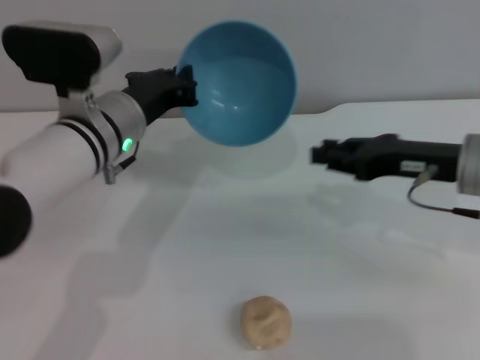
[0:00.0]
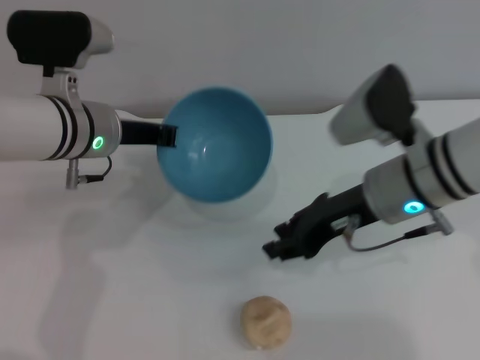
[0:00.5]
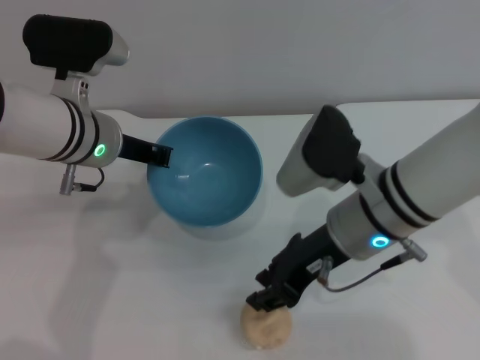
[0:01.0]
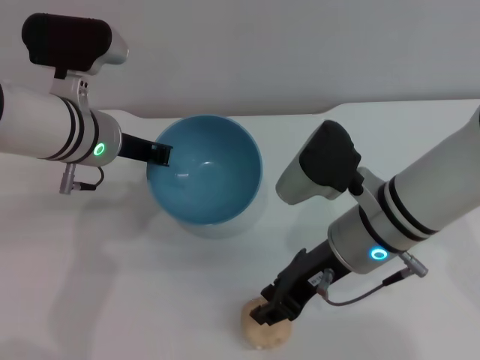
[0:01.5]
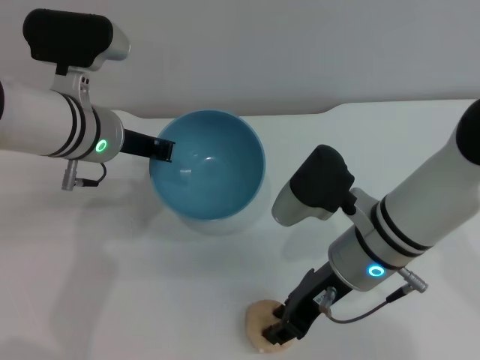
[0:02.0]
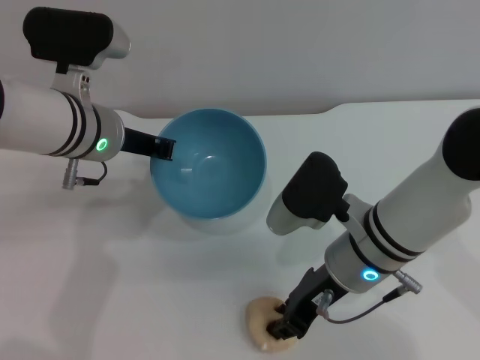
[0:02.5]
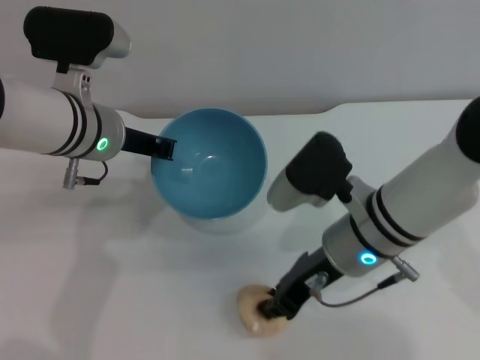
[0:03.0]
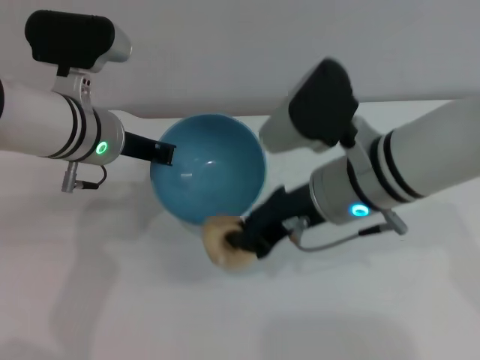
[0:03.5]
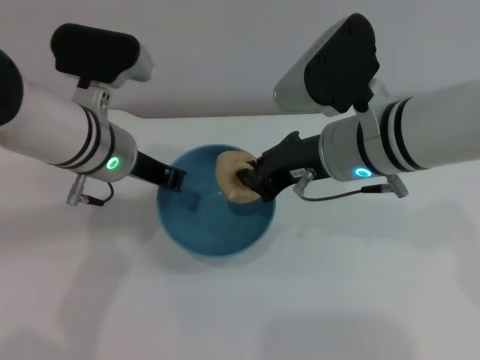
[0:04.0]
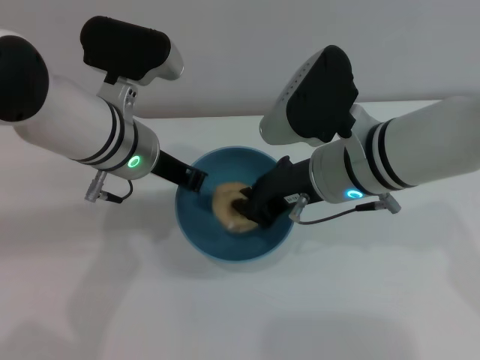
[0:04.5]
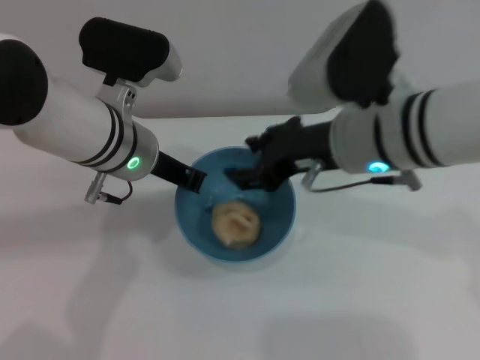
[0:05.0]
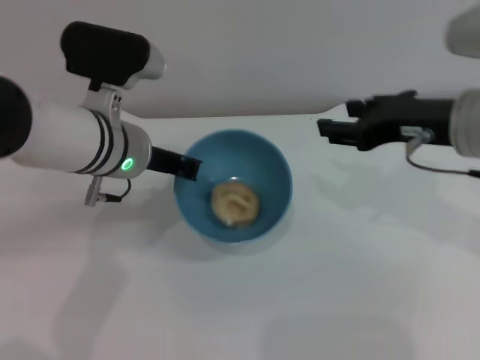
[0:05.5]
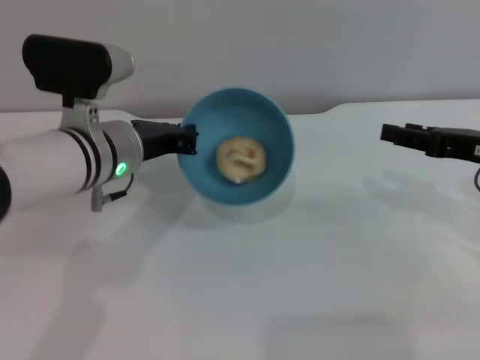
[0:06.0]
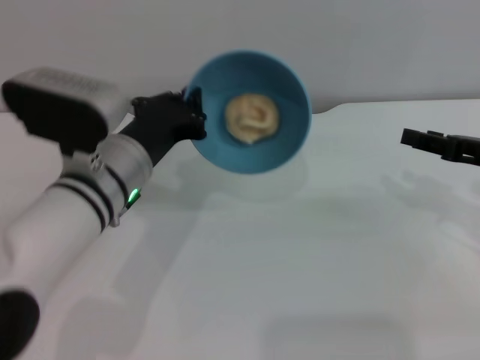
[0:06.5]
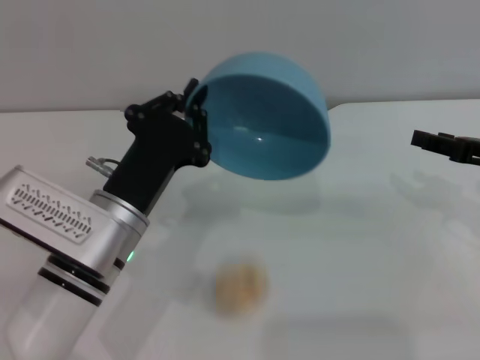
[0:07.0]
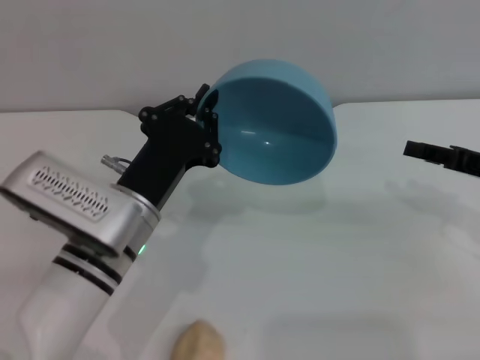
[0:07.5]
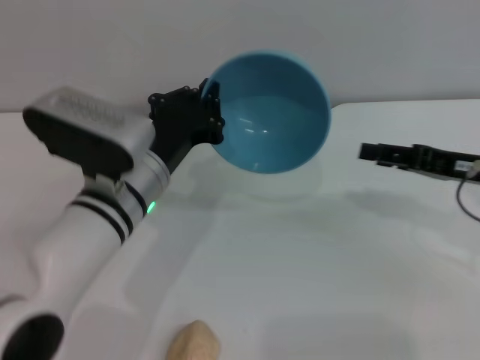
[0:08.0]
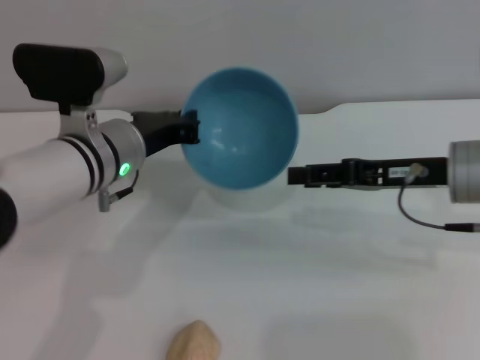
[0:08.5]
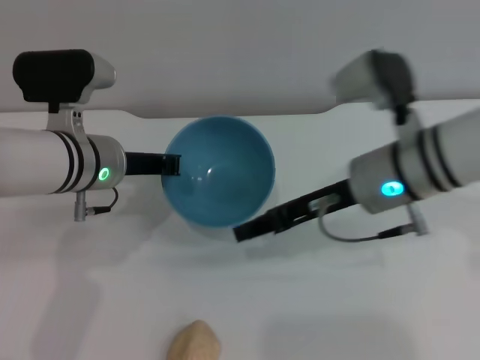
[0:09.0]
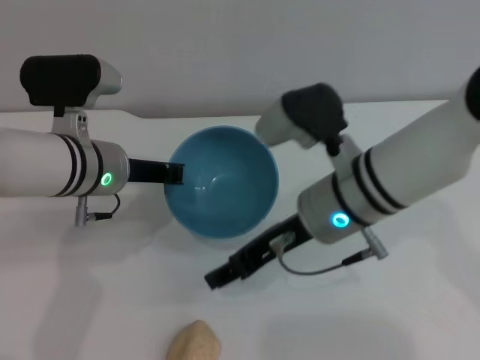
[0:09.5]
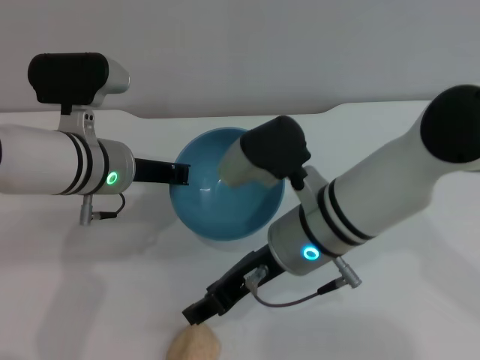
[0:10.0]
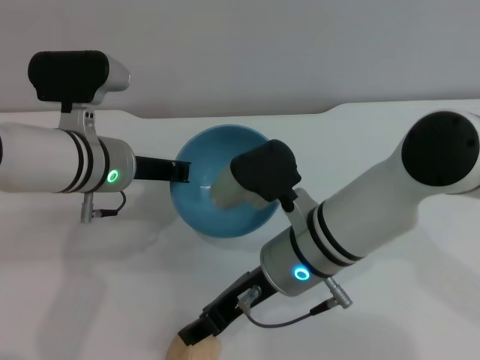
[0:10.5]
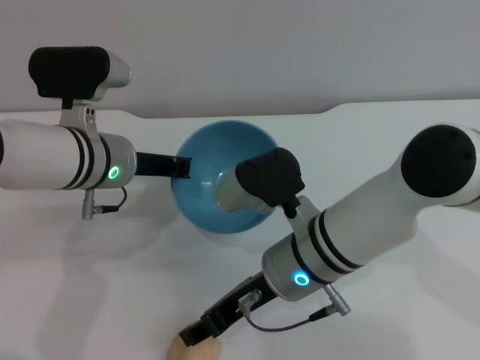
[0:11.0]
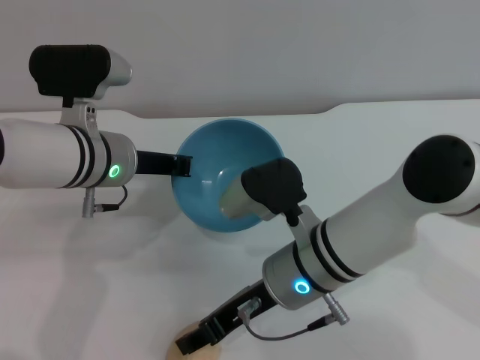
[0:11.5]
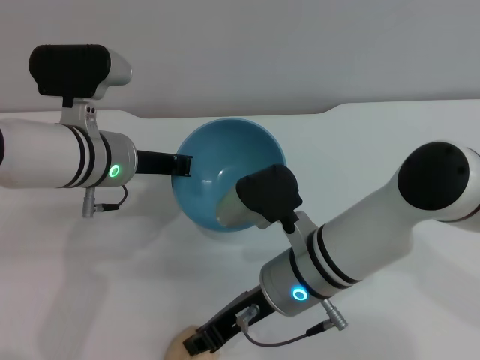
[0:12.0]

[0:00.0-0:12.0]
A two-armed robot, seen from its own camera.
Task of the whole recording: put the egg yolk pastry into the blue bowl and pour it out repeatedly.
Step, 0:00.0 to 0:03.0: Pick up the egg yolk pastry with the right gripper.
Step, 0:03.5 to 0:04.5: Place the egg yolk pastry into the bowl.
Step, 0:05.5 to 0:07.5: Pour the egg yolk pastry out of bowl.
0:00.0 to 0:02.0: The right gripper moves to the left, about 10 cm.
0:02.0 to 0:04.0: The right gripper is displaced upward by roughly 10 cm, and closes up.
0:04.0 to 0:06.0: The right gripper goes some 20 cm to the right, and opens its fingers.
0:08.0 to 0:10.0: The left gripper is displaced forward by roughly 5 cm. Meanwhile the right gripper goes approximately 20 cm to the left.

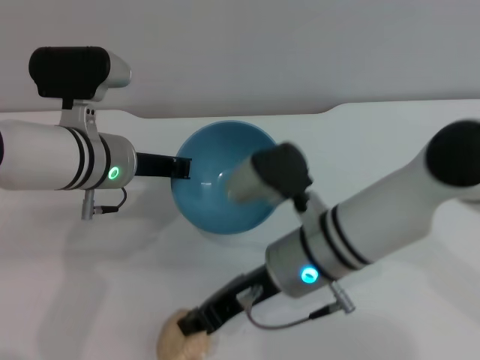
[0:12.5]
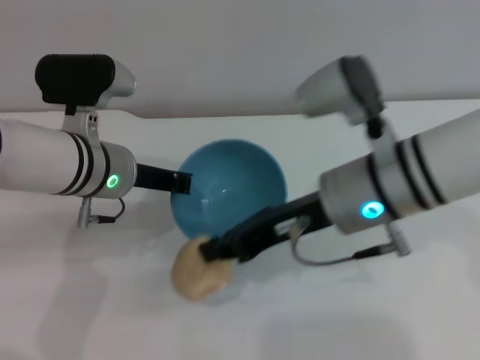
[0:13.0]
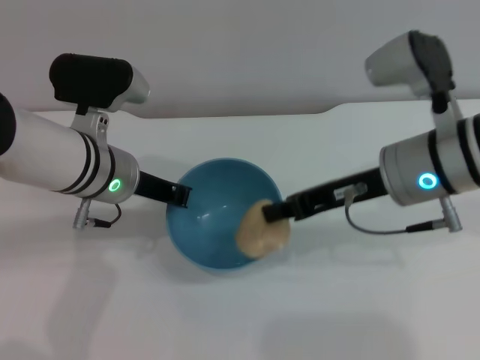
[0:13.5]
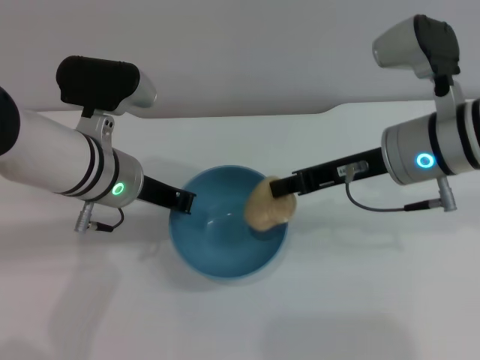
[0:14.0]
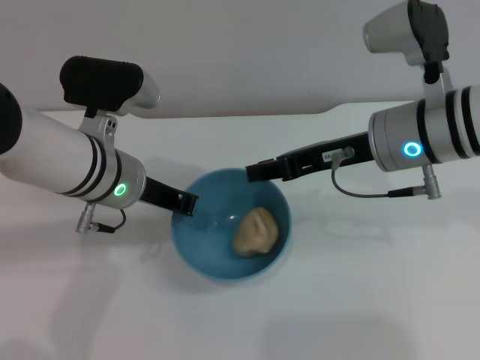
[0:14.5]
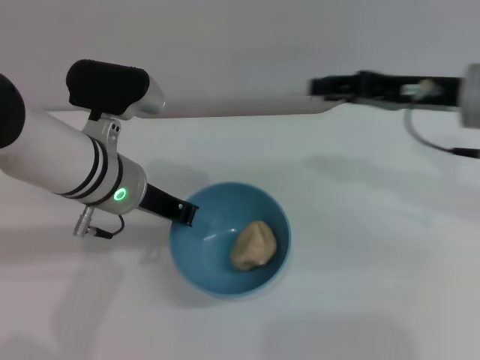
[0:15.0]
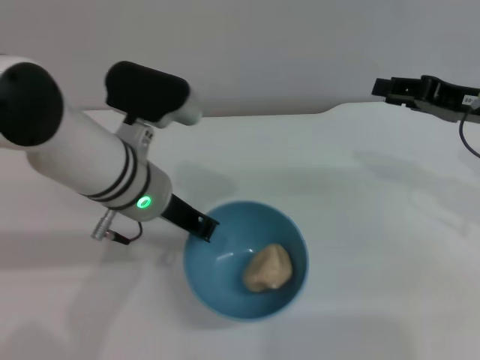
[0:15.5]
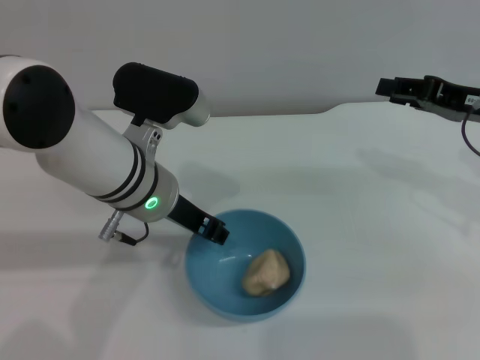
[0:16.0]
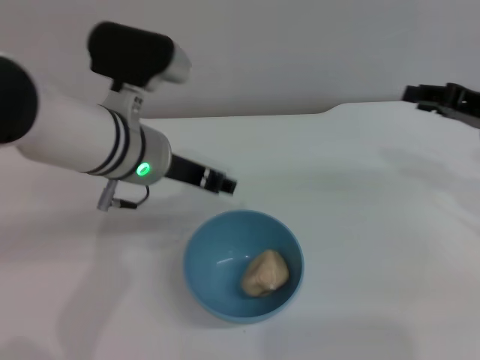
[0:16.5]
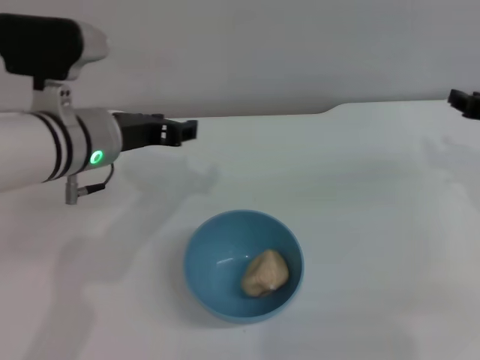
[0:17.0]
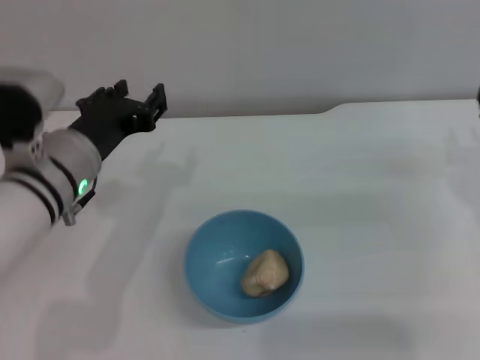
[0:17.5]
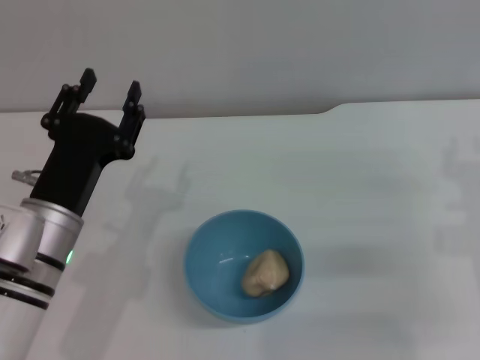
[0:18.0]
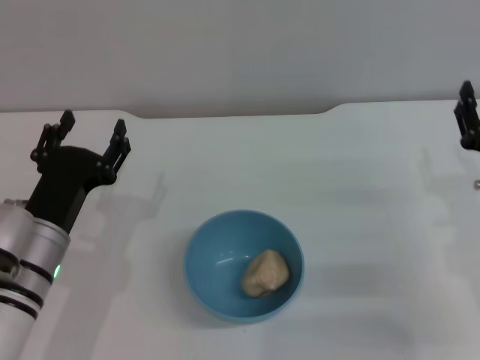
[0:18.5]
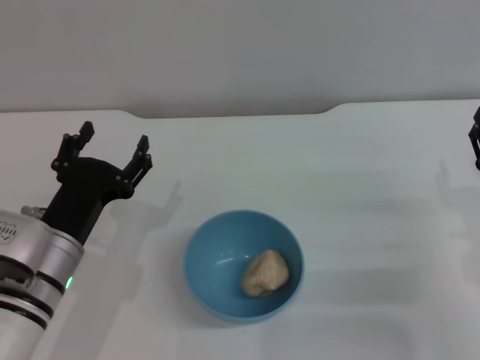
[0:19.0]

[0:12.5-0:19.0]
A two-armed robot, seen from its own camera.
Task of the whole recording: put the egg yolk pastry into the blue bowl and pour it out repeatedly.
Step, 0:13.5 to 0:14.5: Place the egg yolk pastry into the bowl.
Step, 0:15.0 to 0:16.5: Place the bowl on the table.
0:12.5 to 0:14.5: The right gripper is displaced to the right, upward and forward by about 15 cm.
0:14.5 to 0:17.0: The left gripper opens its fingers, while the right gripper heads to the right, covering approximately 15 cm, and opens its fingers.
0:17.0 to 0:19.0: Both grippers move downward and backward, approximately 15 cm. The right gripper opens up.
